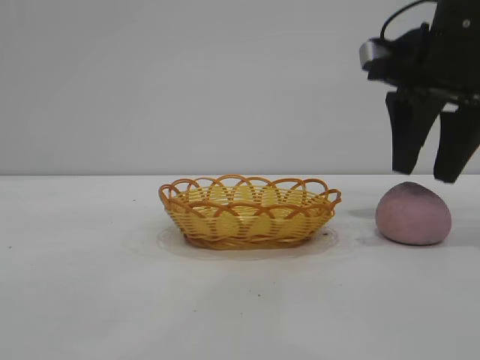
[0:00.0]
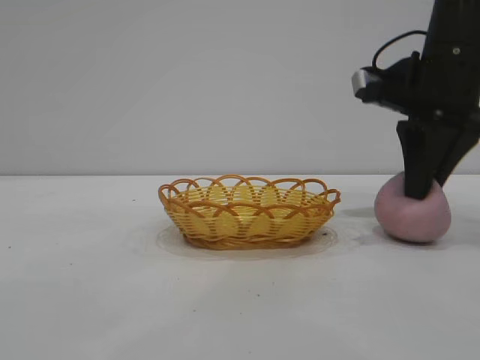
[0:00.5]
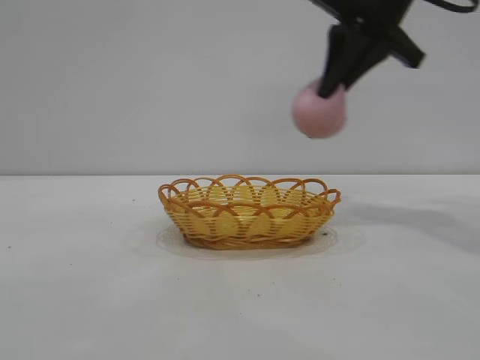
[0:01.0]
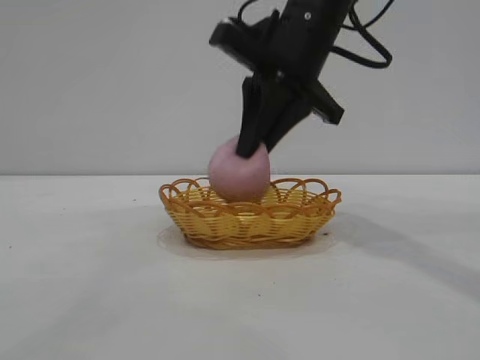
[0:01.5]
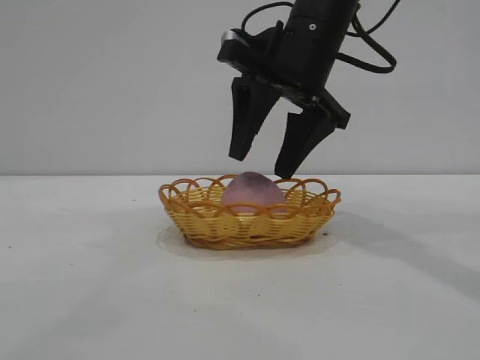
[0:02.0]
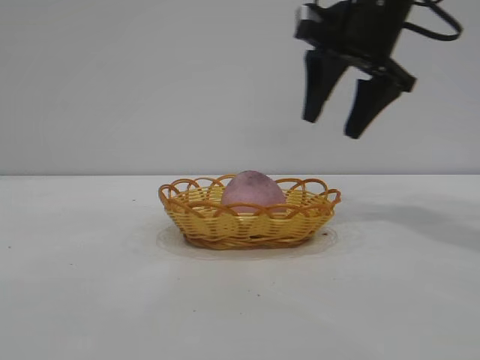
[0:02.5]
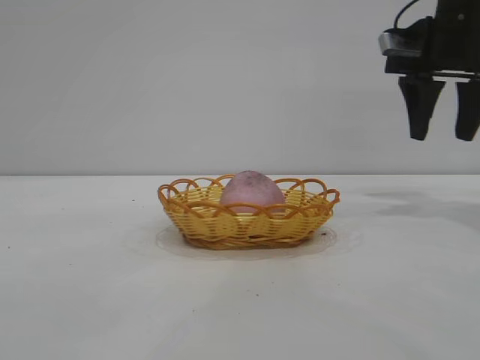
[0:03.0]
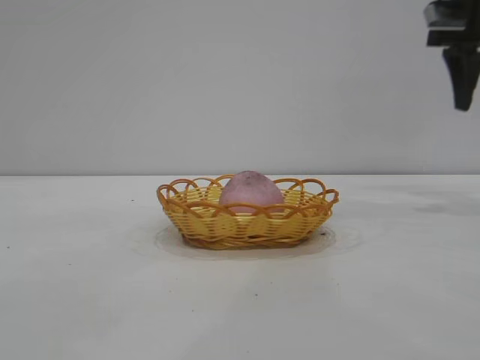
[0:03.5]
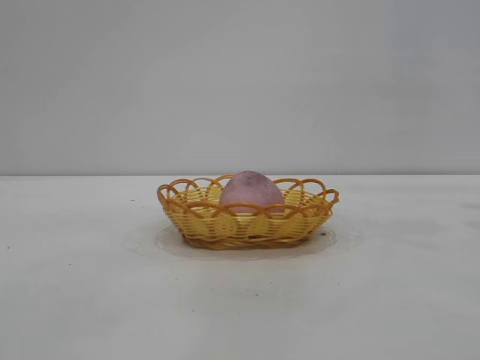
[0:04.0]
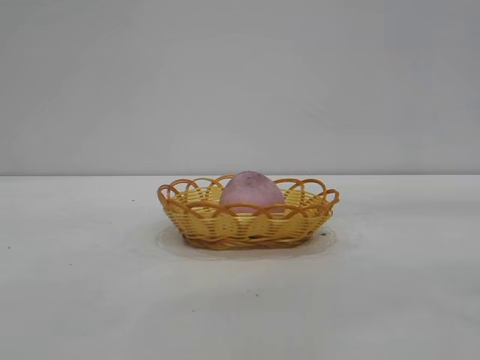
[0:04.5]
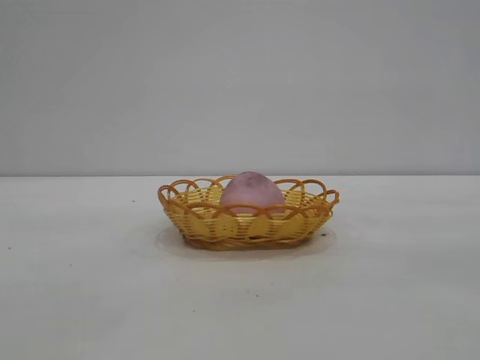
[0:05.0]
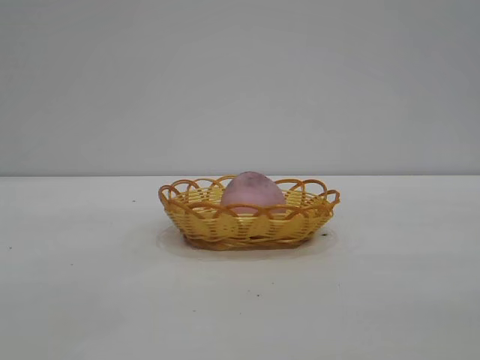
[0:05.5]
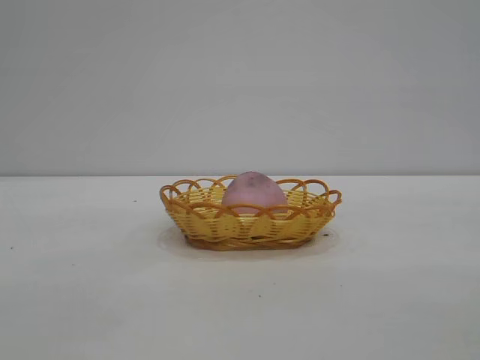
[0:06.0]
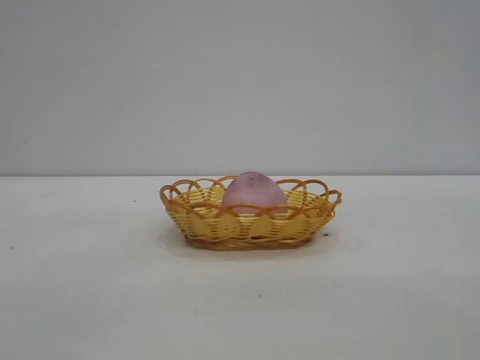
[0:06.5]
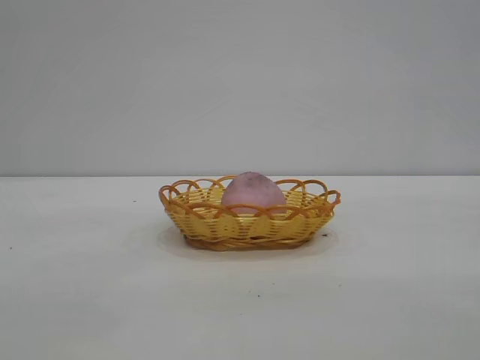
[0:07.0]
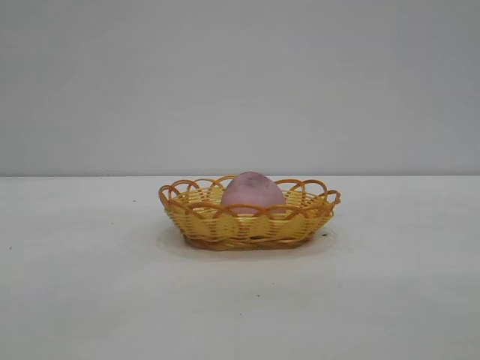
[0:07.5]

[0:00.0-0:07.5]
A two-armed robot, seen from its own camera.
Task of the whole recording: pick up the peach and put it into the basket.
Step, 0:01.0 to 0:02.0: place the peach into the basket.
